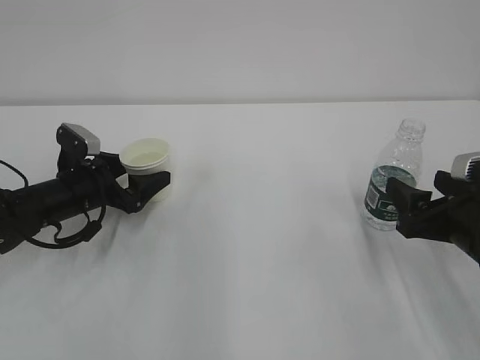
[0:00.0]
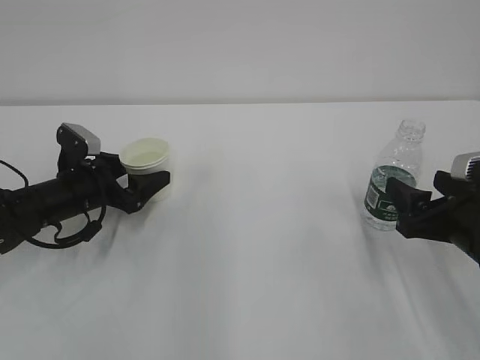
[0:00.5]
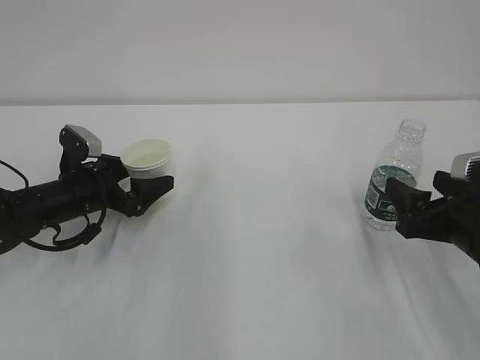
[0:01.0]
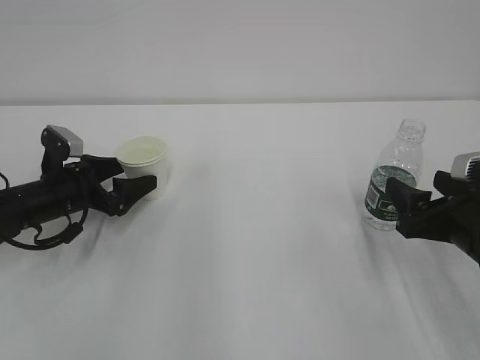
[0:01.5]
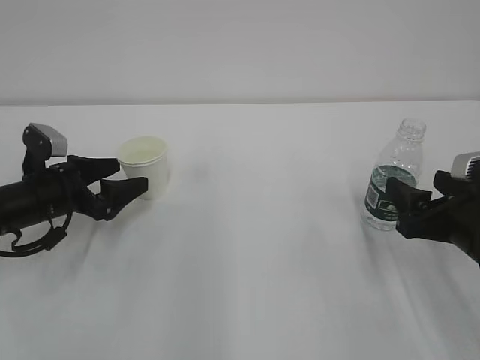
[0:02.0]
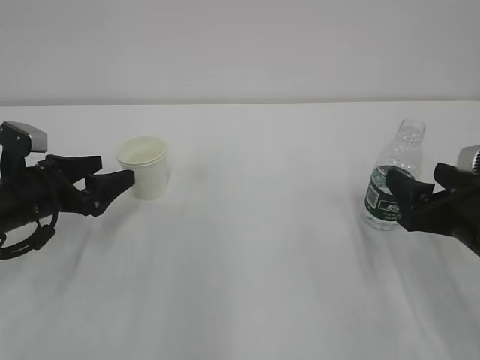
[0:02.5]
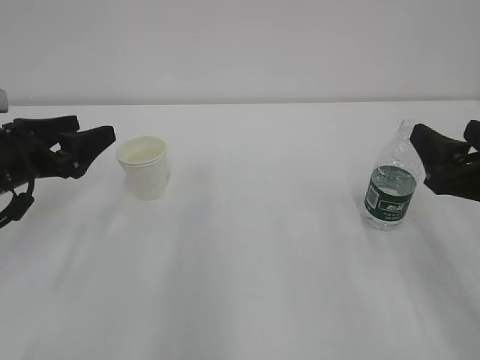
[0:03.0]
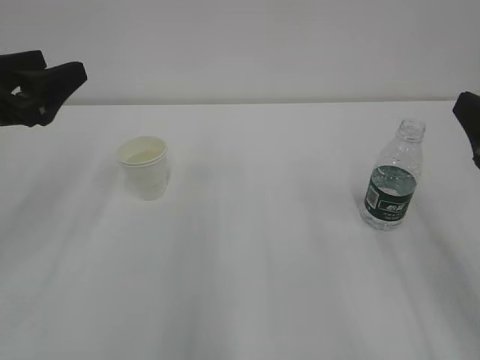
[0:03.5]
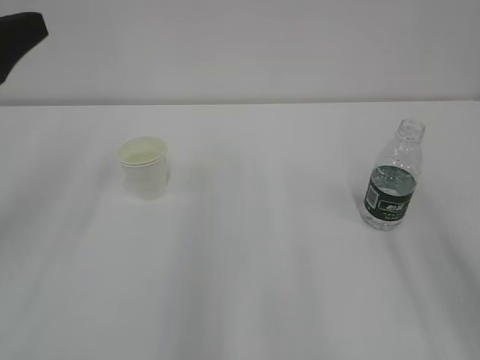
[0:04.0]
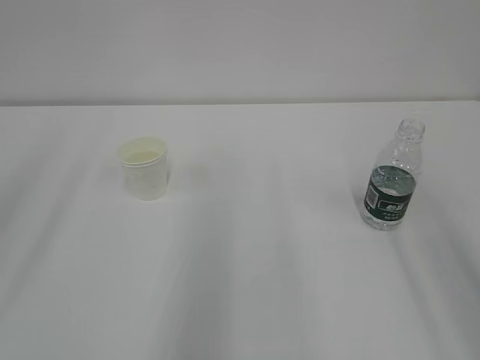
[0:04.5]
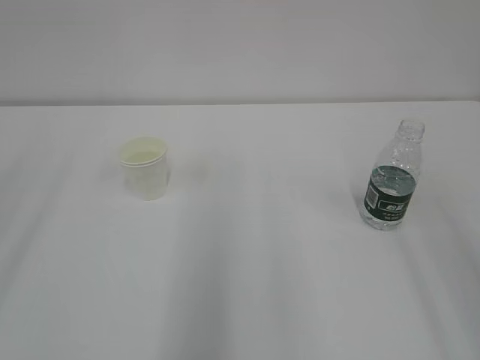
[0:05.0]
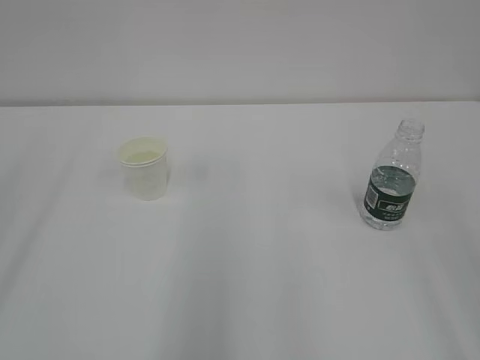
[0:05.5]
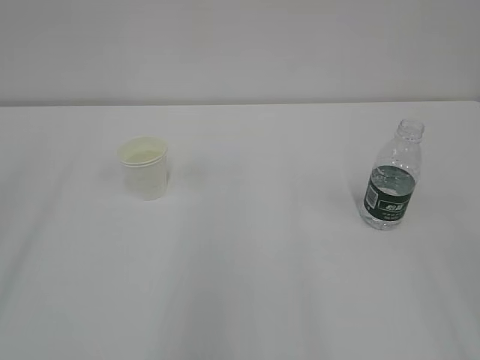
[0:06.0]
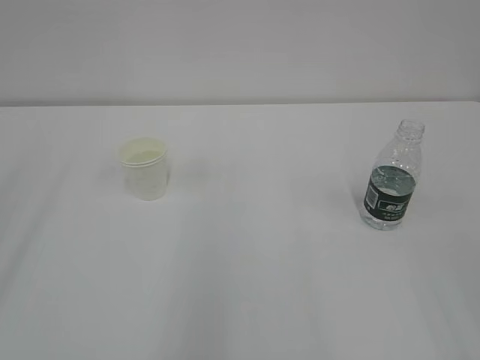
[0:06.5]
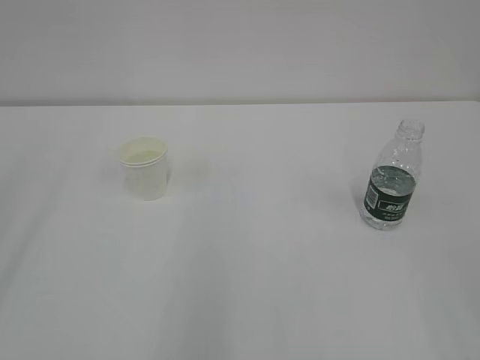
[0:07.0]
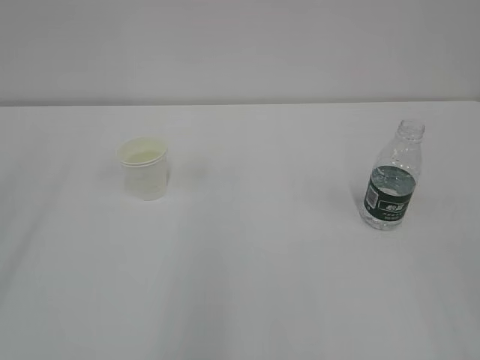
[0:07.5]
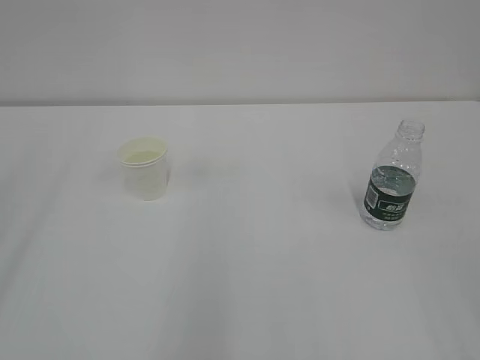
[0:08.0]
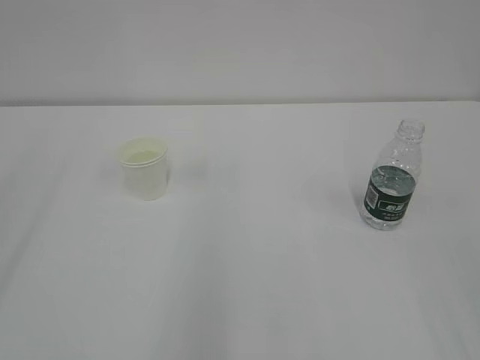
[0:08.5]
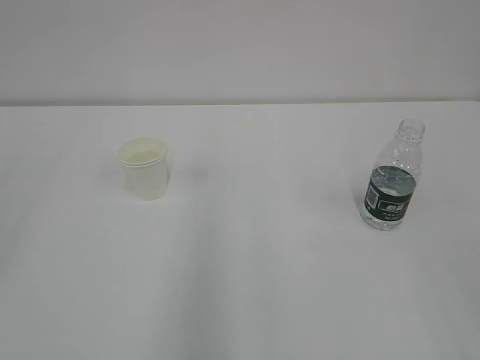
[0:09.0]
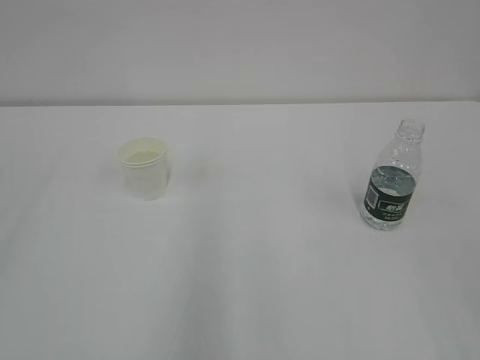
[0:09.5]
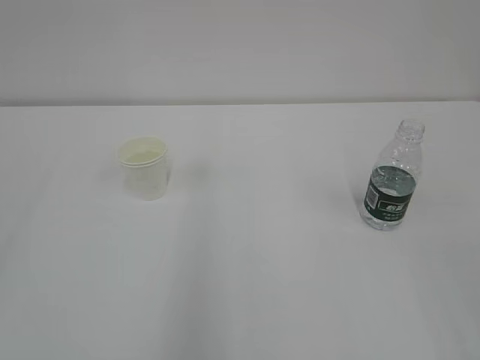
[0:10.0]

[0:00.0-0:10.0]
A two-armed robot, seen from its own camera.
0:00.0 to 0:02.0: The grippers stay close to where they were, moving slightly.
0:02.0 to 0:04.0: The grippers both shift upward and backward by roughly 20 cm.
0:04.0 to 0:06.0: The left gripper goes roughly 20 cm backward and upward.

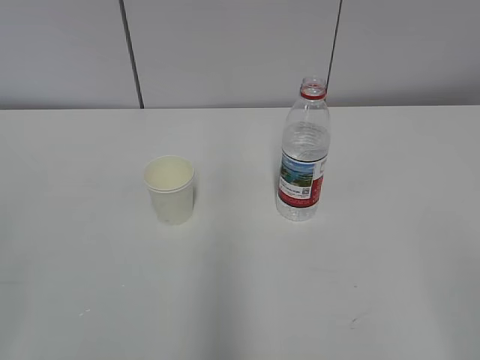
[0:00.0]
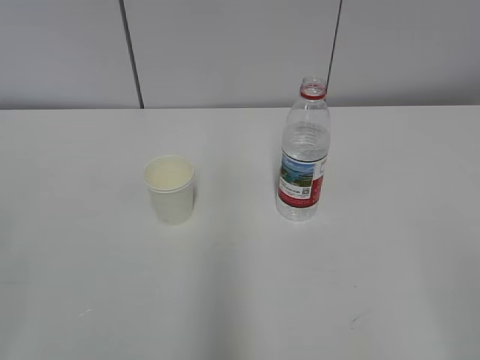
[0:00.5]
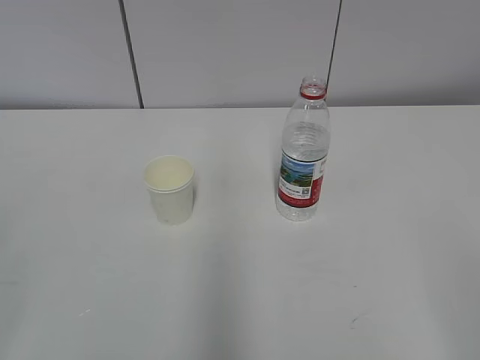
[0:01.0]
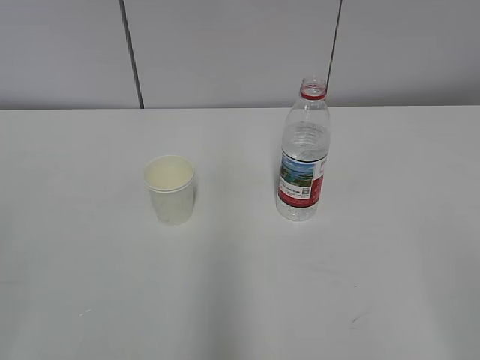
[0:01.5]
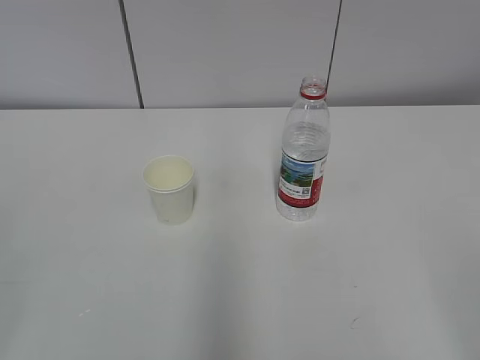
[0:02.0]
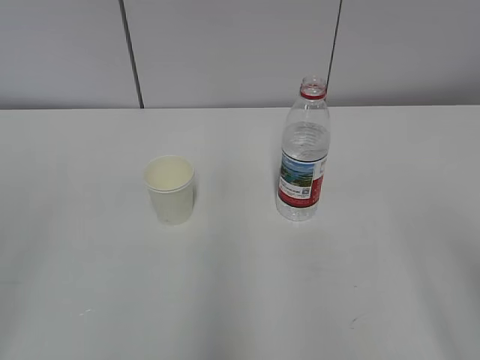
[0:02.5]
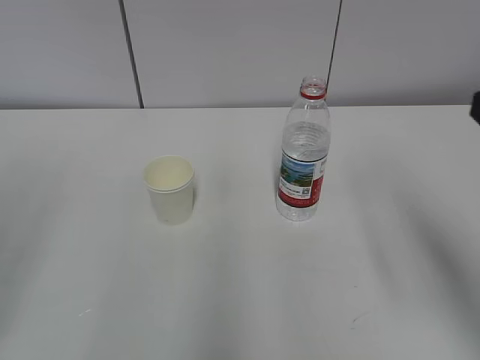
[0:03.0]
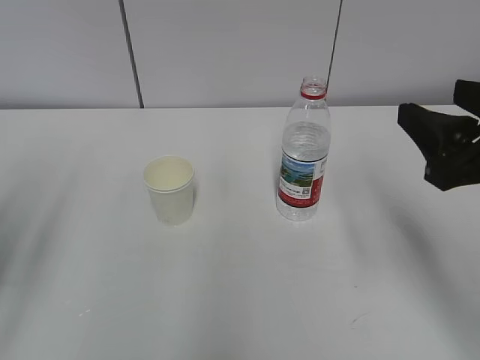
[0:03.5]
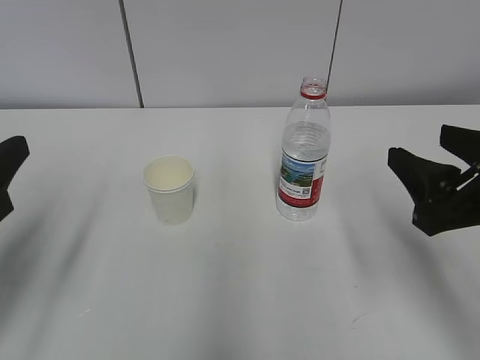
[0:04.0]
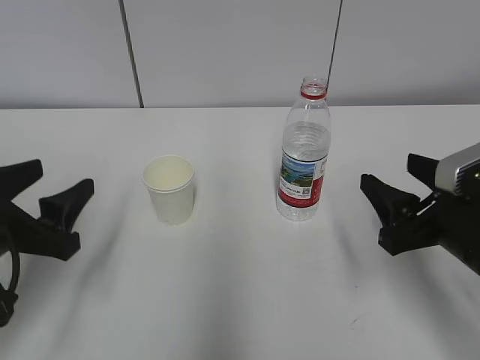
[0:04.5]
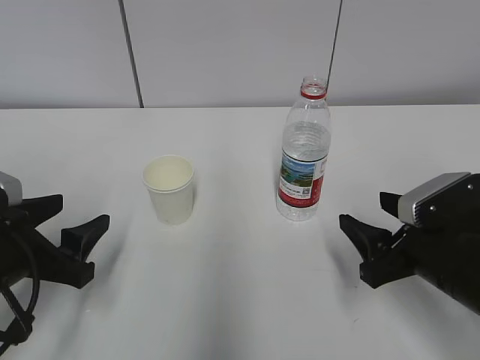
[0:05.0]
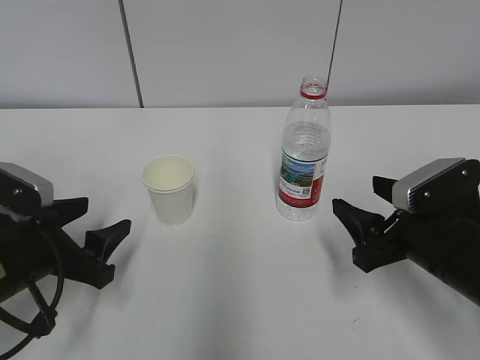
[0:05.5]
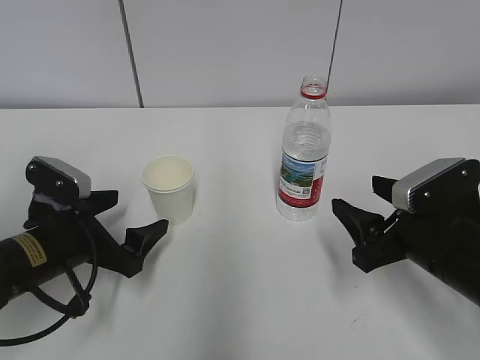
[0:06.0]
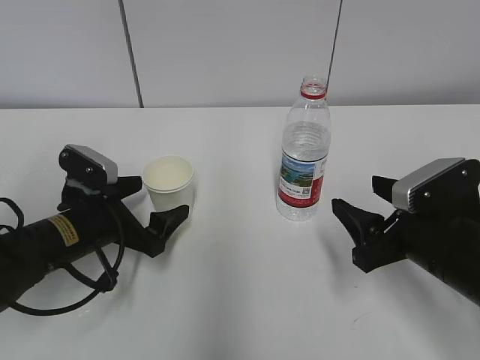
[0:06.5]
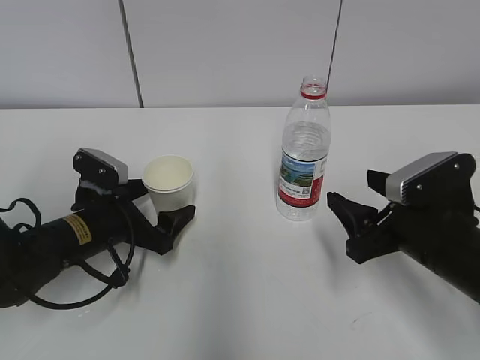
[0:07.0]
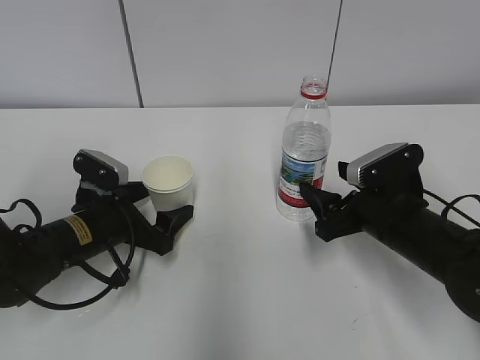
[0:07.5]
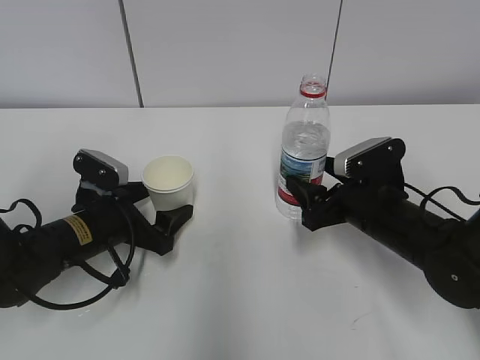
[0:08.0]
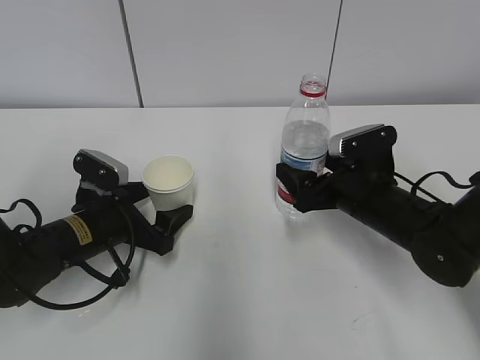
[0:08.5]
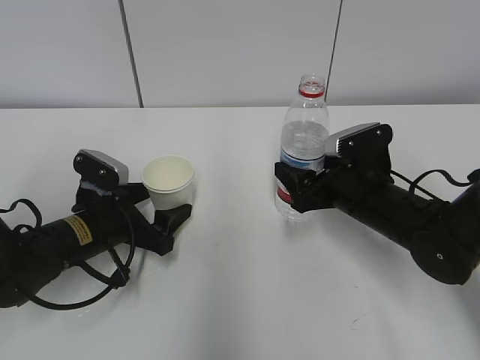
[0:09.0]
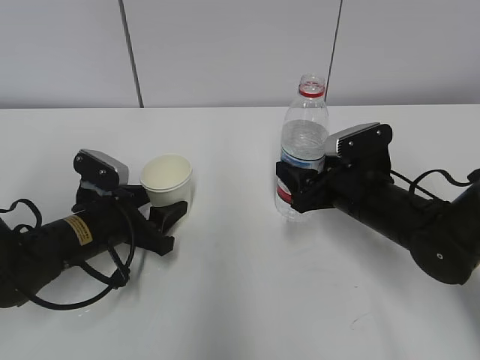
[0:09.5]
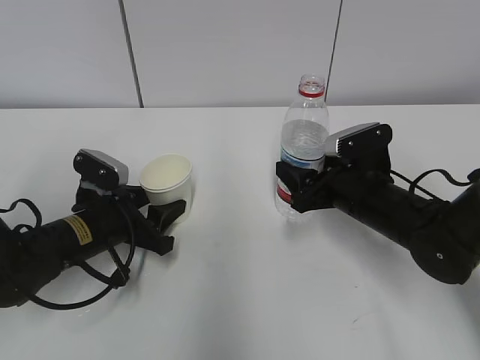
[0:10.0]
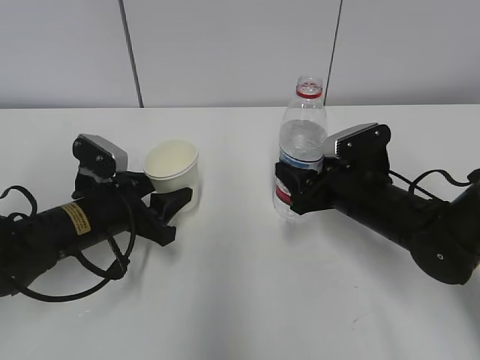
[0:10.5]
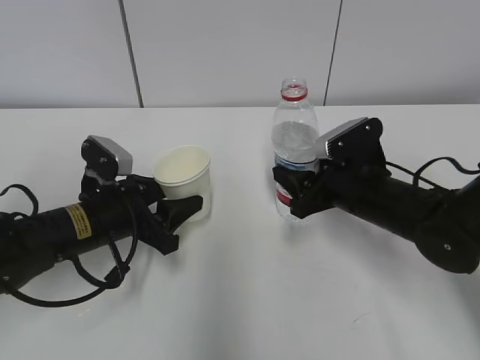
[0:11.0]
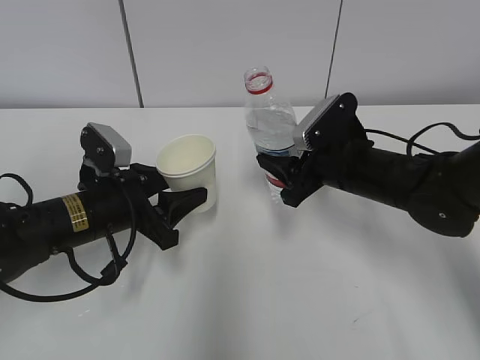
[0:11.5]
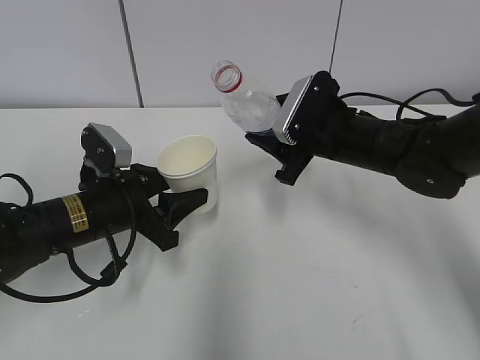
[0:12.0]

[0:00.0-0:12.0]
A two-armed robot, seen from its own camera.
Step, 0:00.0 to 0:08.0: Grab the paper cup with the left hand.
Step, 0:09.0 to 0:12.0: Lift the paper cup with the left hand.
0:02.0 to 0:04.0: Both grippers travel together forward, approximately 20 cm.
0:04.0 to 0:06.0: The left gripper goes approximately 15 cm downward, forward and to the right, and opens its fingers. Meanwhile the right gripper moves downward, approximately 10 cm.
0:06.0 to 0:08.0: The right gripper goes about 10 cm forward, while the left gripper travels forward by about 5 cm.
0:08.0 to 0:10.0: The left gripper closes its fingers, while the right gripper closes up.
0:10.0 to 0:12.0: The right gripper is displaced upward by about 5 cm, and closes.

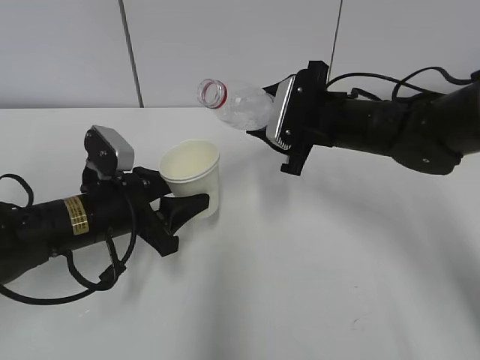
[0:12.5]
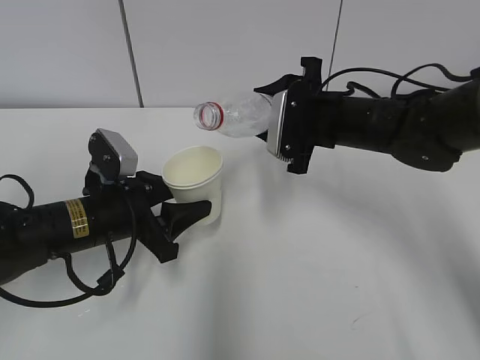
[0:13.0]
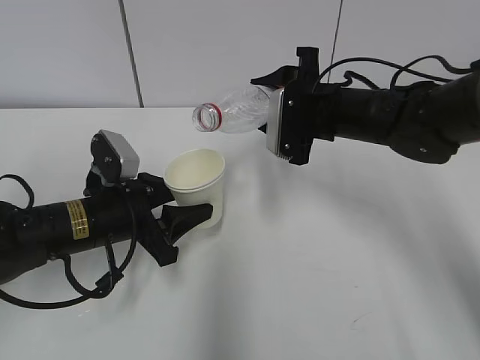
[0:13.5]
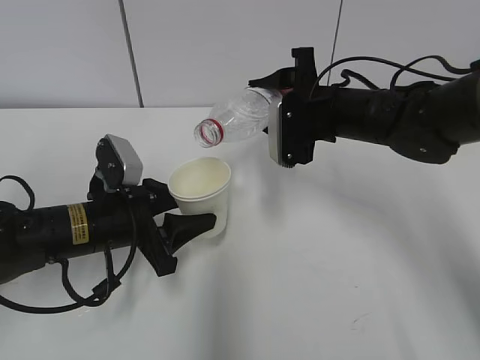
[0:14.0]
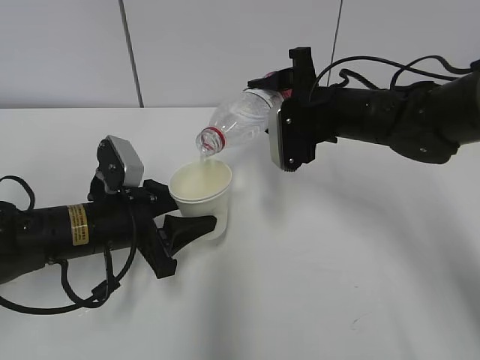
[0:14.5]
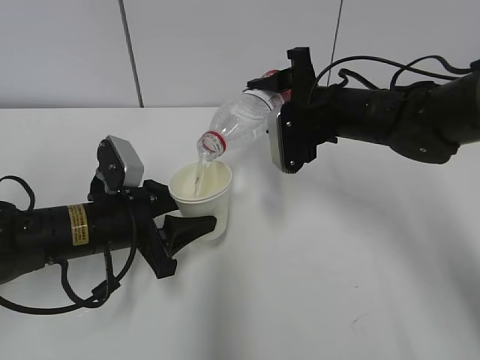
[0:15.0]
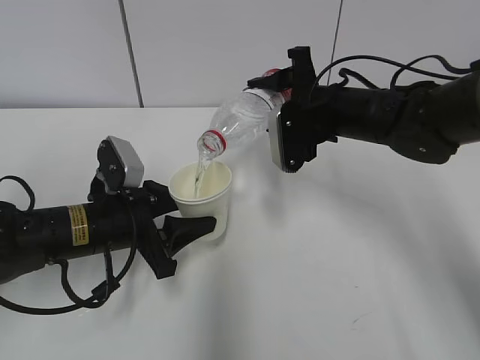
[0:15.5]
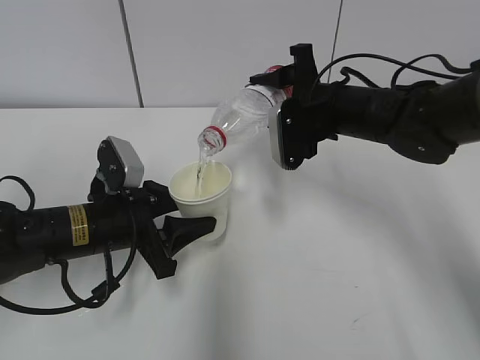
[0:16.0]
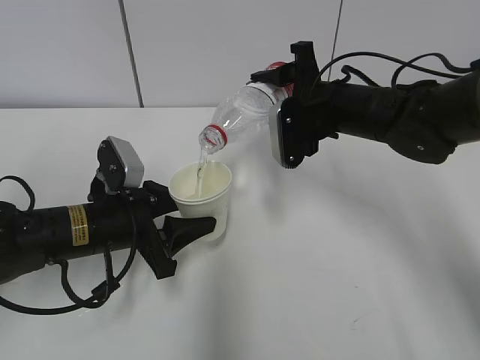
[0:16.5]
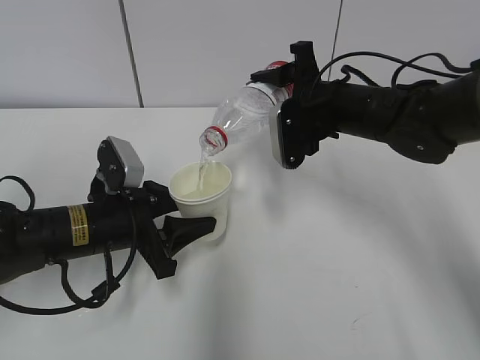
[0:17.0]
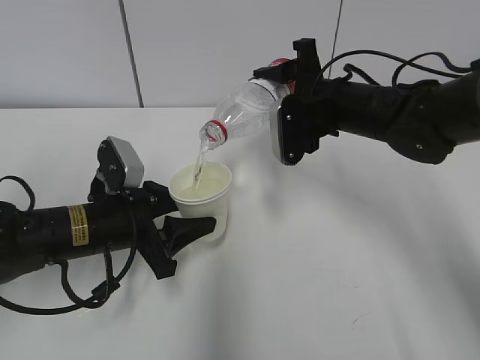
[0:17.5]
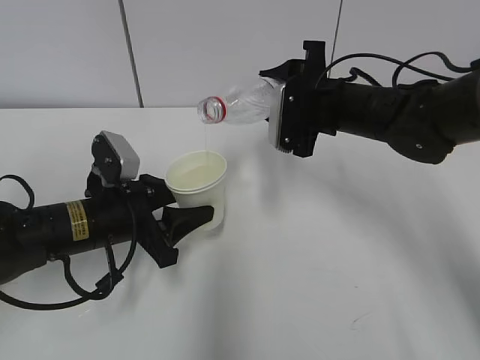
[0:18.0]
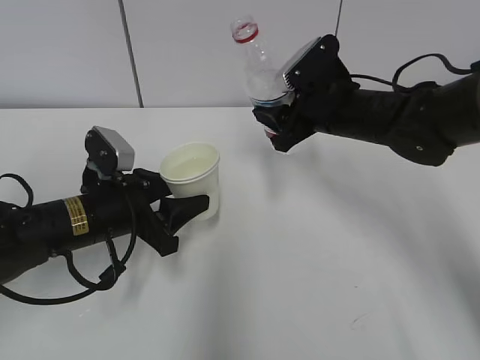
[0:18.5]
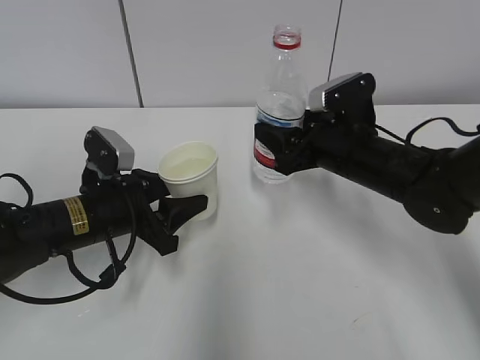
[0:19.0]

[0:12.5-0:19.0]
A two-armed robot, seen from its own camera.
Step, 0:12.5 to 0:15.0: Fill water with the left hand.
Step, 0:12.5 to 0:15.0: Pour water with the right hand.
Step, 0:16.0 to 0:18.5: Place the water bottle with the right hand.
0:14.5 to 0:17.0: The grippers move only a little.
0:17.0 to 0:19.0: The right gripper changes place by roughly 5 cm.
